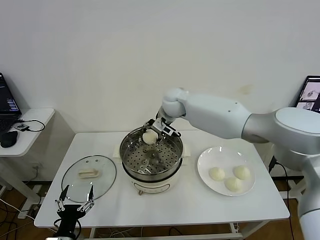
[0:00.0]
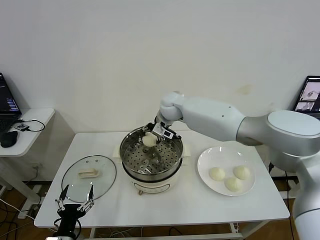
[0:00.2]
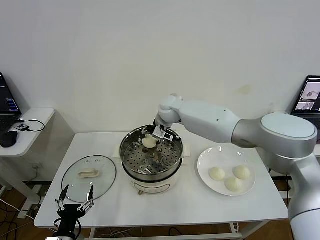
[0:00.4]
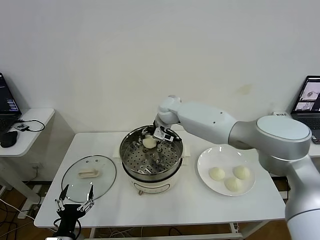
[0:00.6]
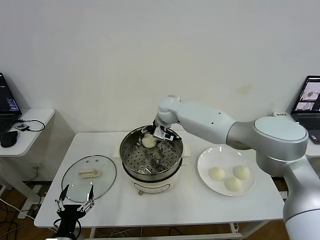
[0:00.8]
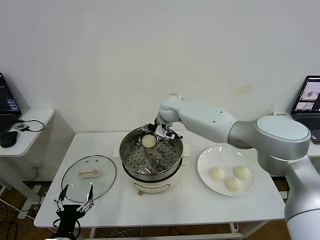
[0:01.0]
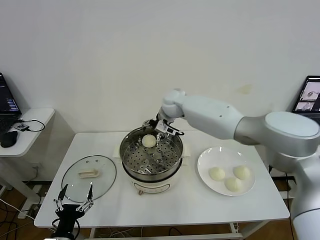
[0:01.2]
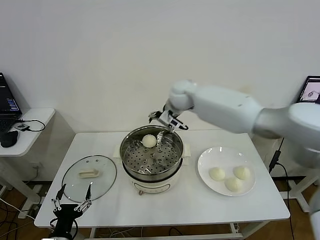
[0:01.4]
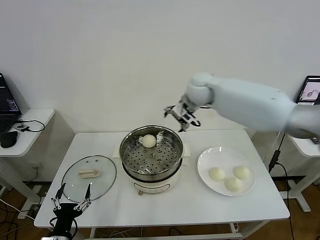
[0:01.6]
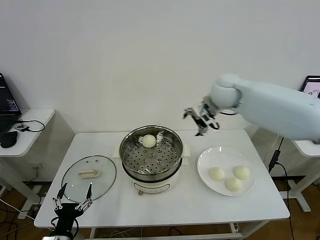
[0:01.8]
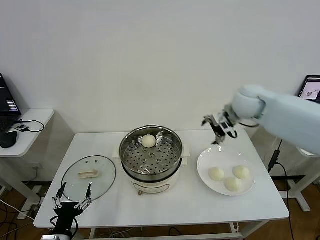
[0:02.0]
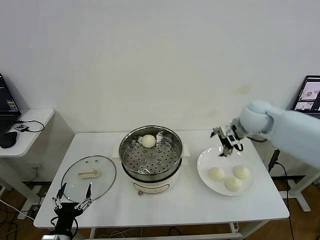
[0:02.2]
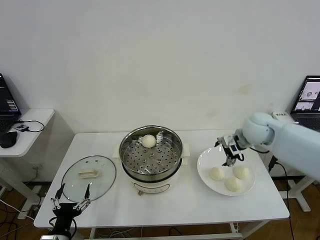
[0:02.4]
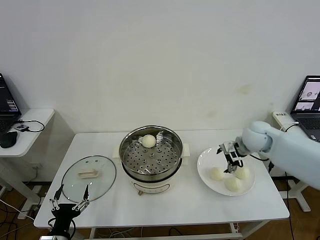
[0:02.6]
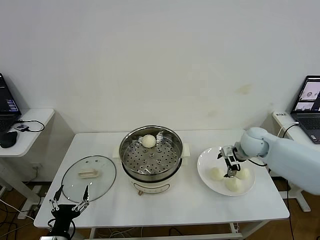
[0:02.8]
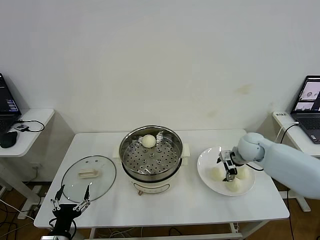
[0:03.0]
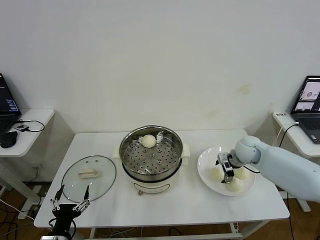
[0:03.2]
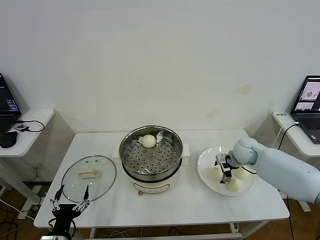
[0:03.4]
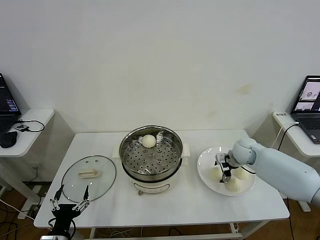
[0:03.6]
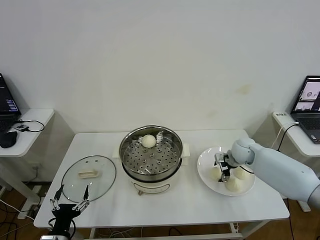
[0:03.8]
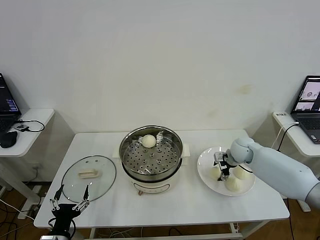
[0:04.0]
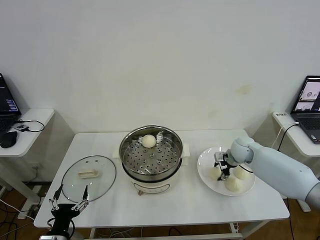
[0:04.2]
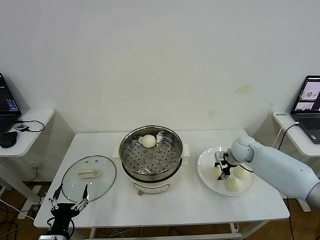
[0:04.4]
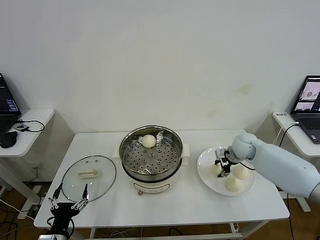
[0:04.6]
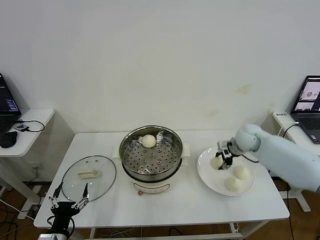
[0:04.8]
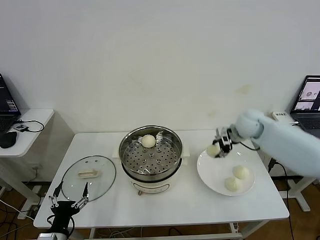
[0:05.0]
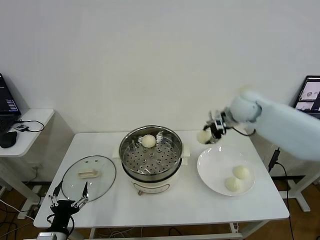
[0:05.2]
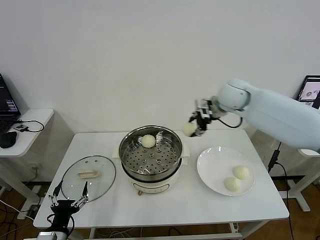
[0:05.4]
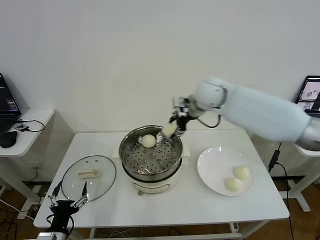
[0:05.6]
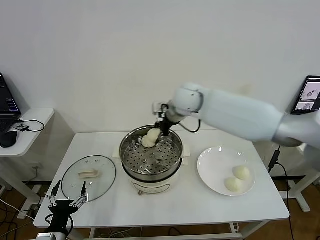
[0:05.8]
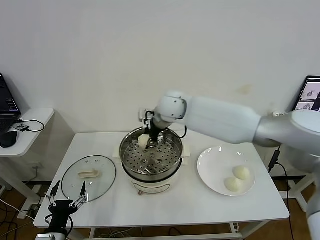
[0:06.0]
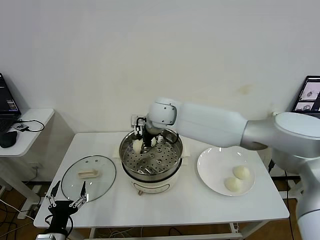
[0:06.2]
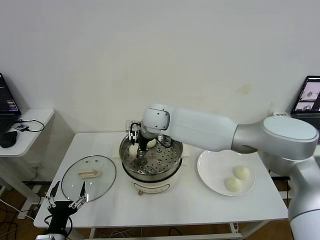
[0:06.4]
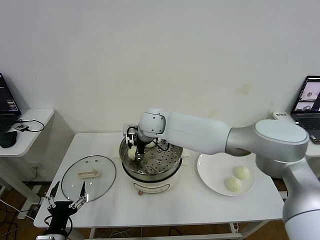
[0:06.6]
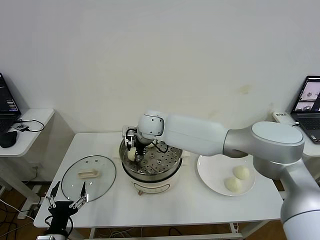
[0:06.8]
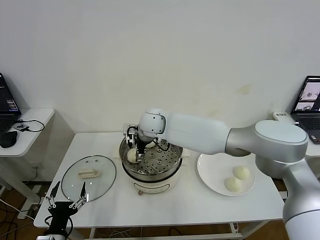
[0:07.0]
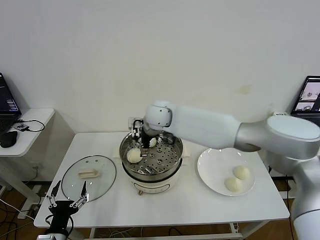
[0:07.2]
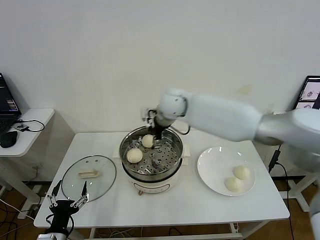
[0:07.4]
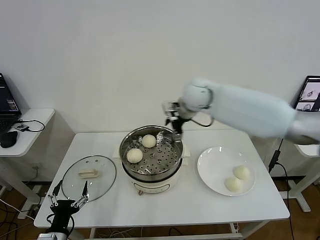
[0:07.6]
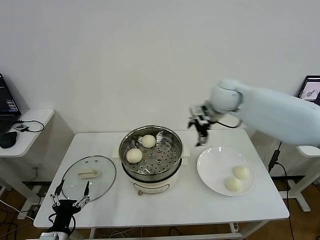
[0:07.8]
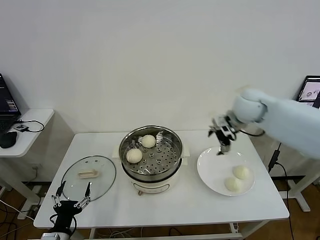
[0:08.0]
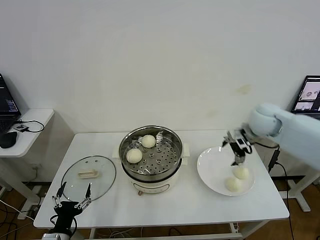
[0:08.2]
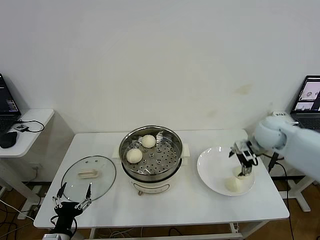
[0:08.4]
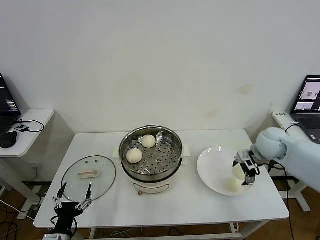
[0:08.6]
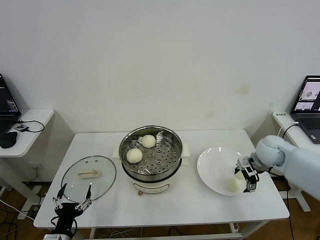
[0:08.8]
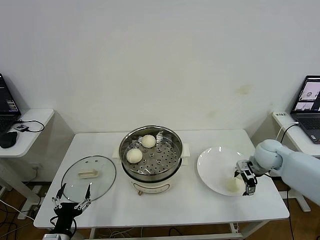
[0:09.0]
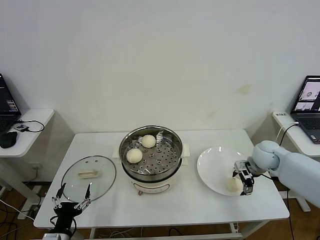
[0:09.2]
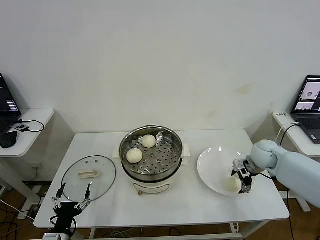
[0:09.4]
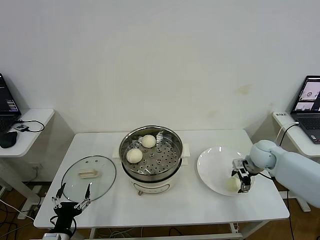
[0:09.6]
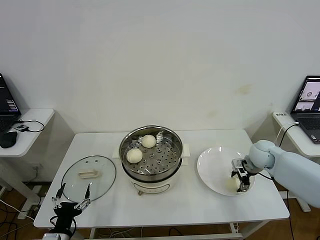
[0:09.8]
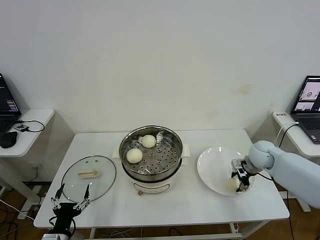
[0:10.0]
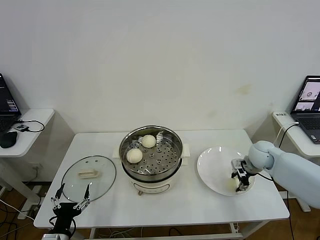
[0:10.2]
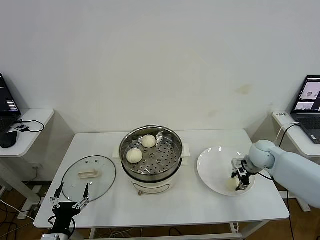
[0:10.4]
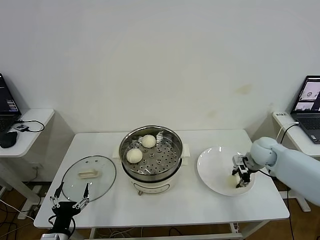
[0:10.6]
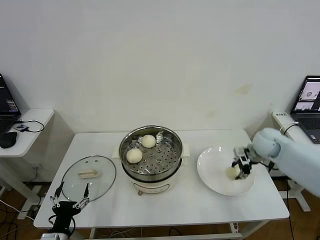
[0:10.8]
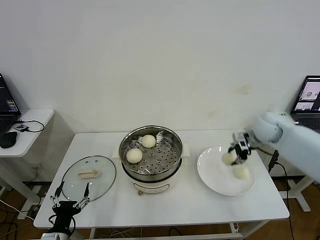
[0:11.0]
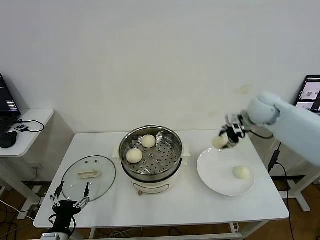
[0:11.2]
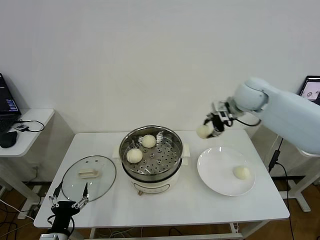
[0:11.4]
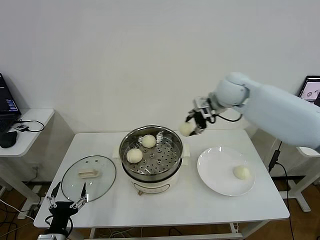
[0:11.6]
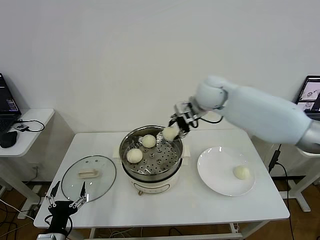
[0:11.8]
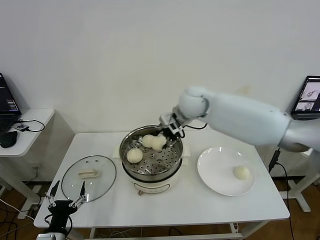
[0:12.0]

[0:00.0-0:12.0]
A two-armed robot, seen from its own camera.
Step, 1.0 to 4.2 s: Grasp the baozi in the plate with right gripper.
Step, 4.4 to 6.8 s: Place the baozi on the steamer with right gripper.
Step, 7.0 to 10.2 s: Grasp the baozi in the plate with right gripper.
0.0 to 1.6 s: The right gripper shifts some 15 cm to the right and upward, and opens up.
1.6 to 3.0 s: The right gripper moves downward and to the right, roughly 25 cm.
3.0 to 4.4 s: The right gripper closes its fingers.
4.4 to 6.0 s: The right gripper heads to the left and upward, covering approximately 35 cm.
6.0 to 7.6 s: The right gripper shifts about 15 cm to the right, and opens its fingers.
7.6 to 9.0 s: The right gripper shifts approximately 30 cm to the right and downward.
9.0 to 10.4 s: The right gripper closes.
10.4 to 12.0 s: The right gripper moves to the left and upward, approximately 35 cm.

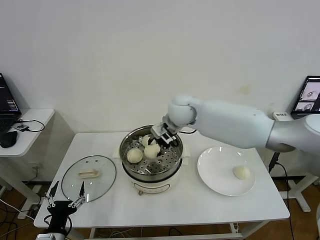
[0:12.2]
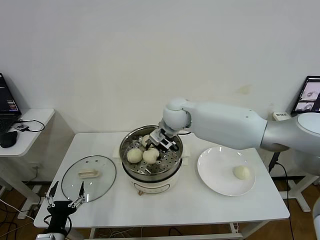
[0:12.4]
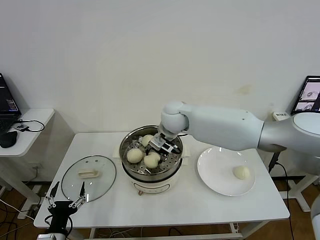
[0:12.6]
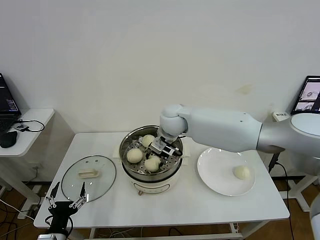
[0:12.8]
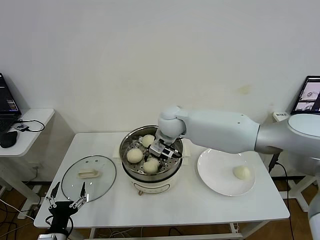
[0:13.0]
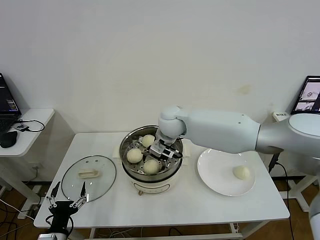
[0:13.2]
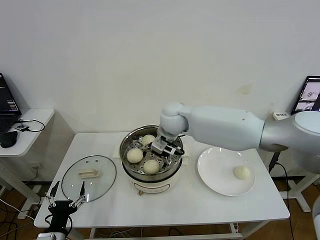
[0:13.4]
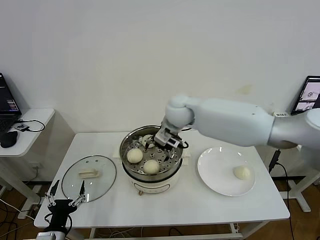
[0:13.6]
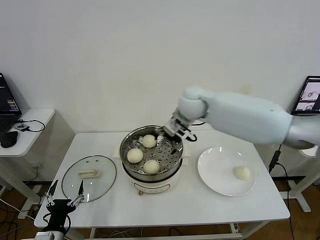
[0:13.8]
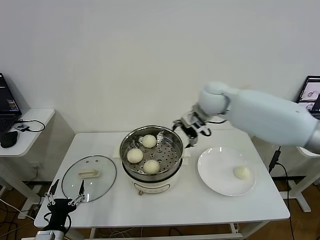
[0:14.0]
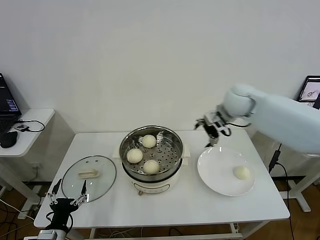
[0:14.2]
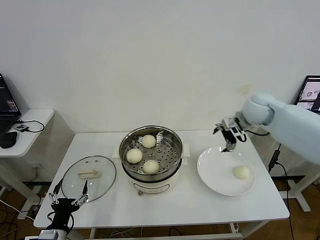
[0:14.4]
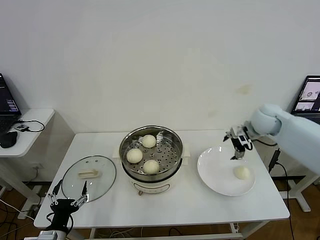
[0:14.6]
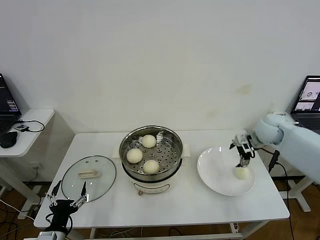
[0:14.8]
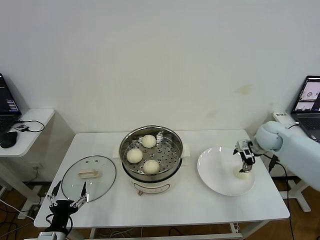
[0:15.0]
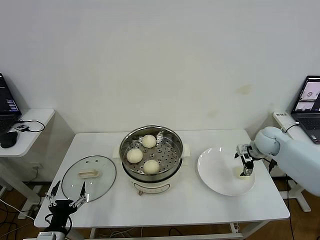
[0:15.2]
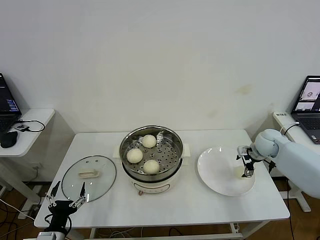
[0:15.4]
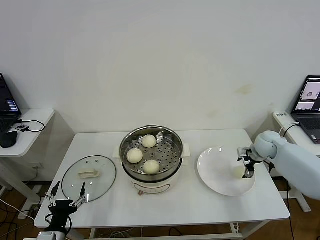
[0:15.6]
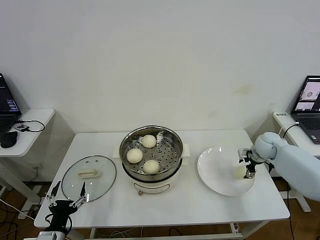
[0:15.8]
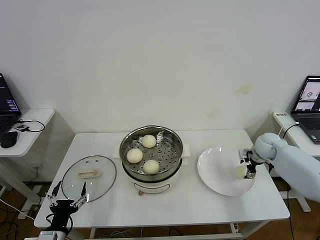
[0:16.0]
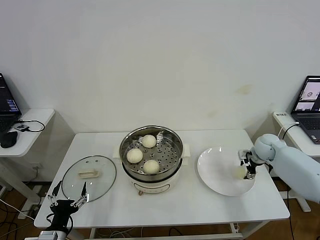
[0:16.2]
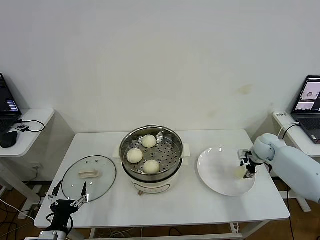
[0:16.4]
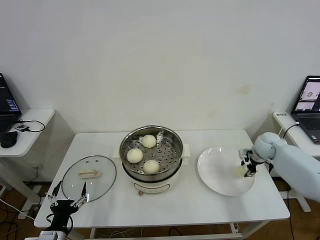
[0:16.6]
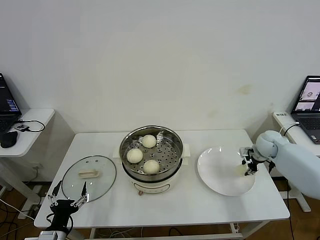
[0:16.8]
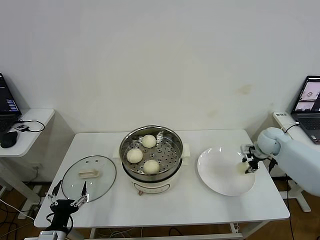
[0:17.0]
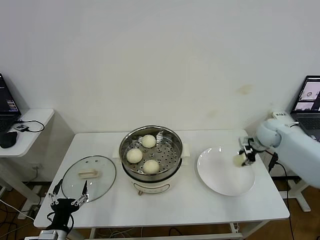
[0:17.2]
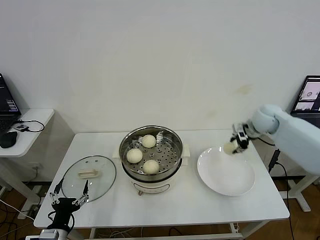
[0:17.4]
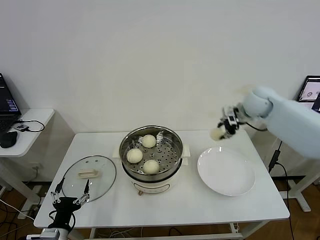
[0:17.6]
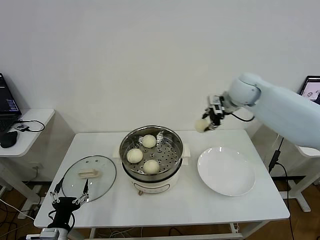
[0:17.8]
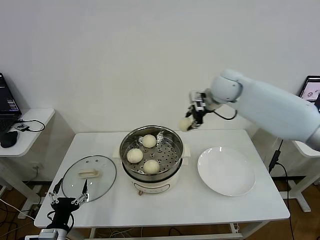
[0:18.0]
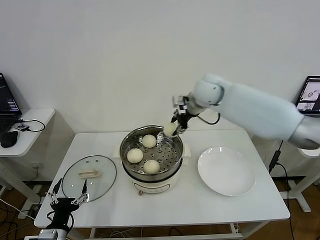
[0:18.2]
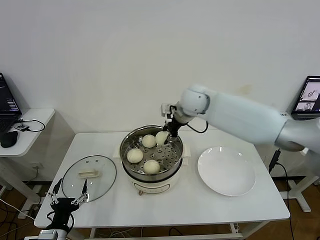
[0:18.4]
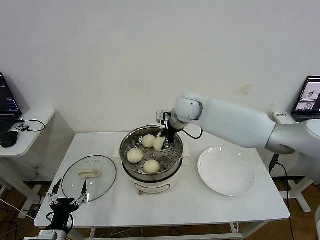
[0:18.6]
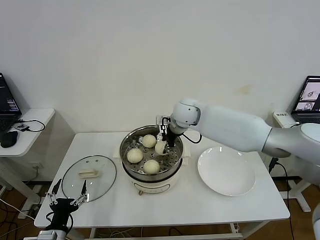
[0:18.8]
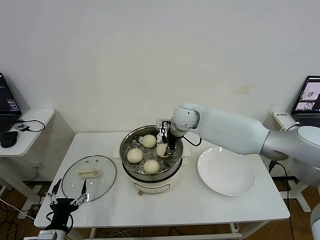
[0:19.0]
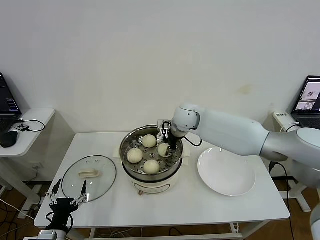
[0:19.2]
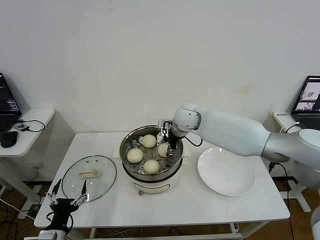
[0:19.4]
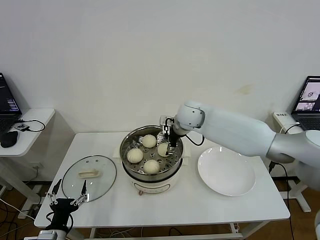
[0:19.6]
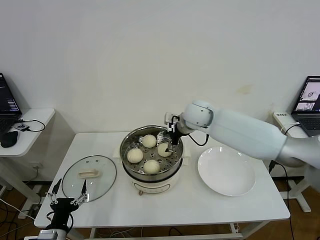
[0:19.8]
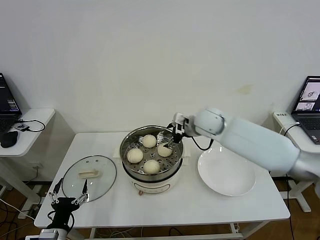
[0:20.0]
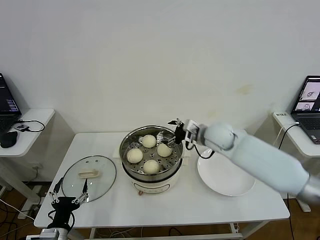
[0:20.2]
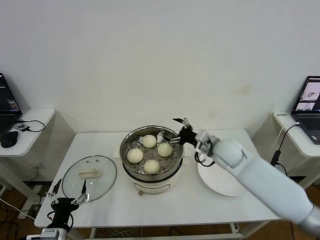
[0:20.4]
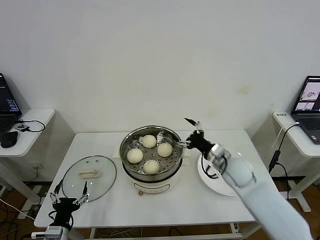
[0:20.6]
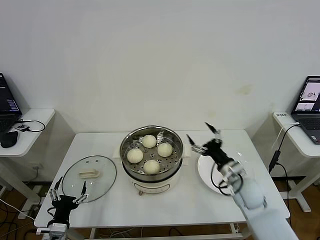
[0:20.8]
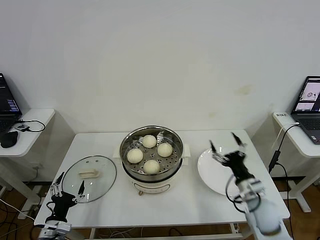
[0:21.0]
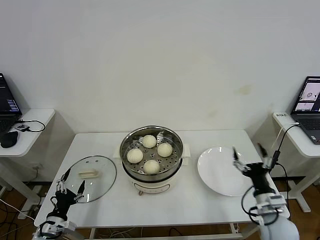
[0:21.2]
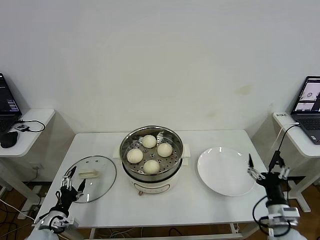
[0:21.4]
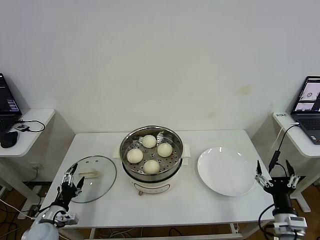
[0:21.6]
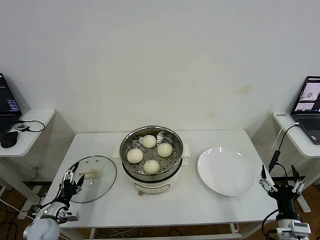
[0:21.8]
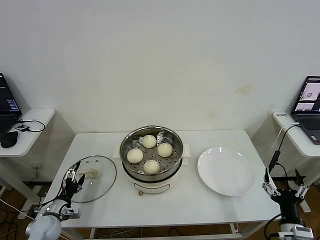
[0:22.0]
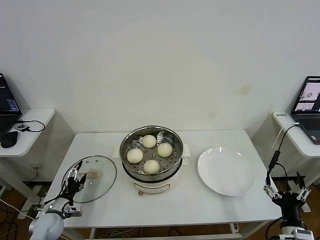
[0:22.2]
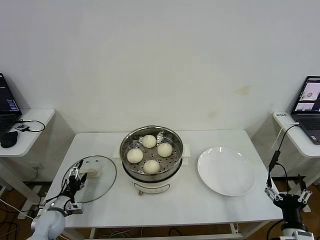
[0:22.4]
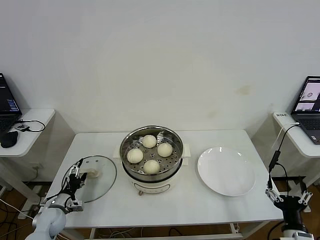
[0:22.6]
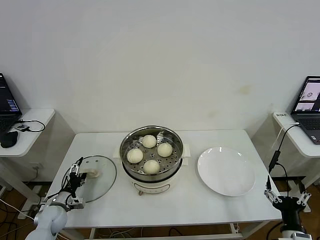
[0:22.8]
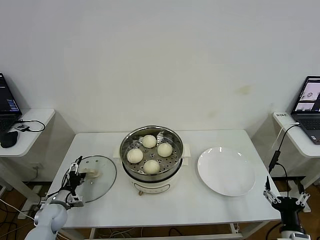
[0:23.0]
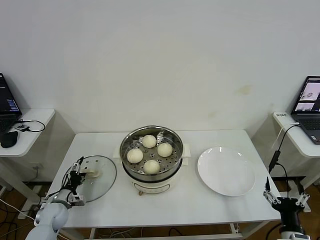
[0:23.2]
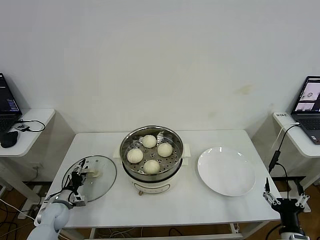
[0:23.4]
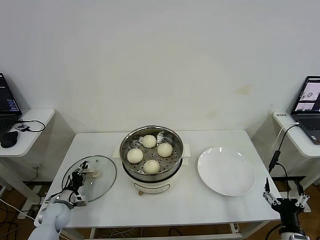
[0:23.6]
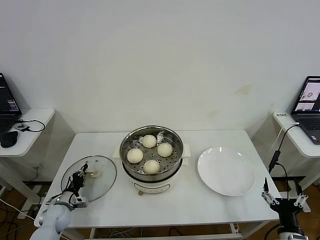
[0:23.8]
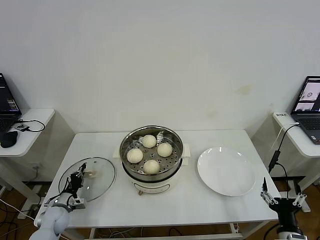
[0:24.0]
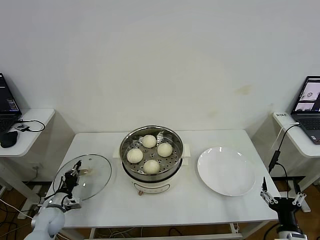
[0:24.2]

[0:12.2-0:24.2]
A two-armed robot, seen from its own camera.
Step, 13.2 to 16.4 s: Grasp the baozi in the plate with right gripper.
Step, 16.6 to 19.4 s: Place the baozi on the steamer with right gripper.
12.2 to 13.8 s: The right gripper heads to the right, covering some 5 cm, and opens.
13.8 to 15.2 s: The right gripper is displaced to the right and downward by approximately 30 cm.
15.2 to 16.6 s: The right gripper closes.
16.6 to 18.2 s: The right gripper shifts approximately 35 cm to the left and upward.
18.2 to 19.8 s: The right gripper travels downward by some 5 cm, and opens.
19.8 to 21.2 s: The right gripper shifts approximately 40 cm backward, to the right and downward. The left gripper ends up about 5 cm from where it was.
21.2 to 22.6 s: The left gripper moves forward, approximately 10 cm, while the right gripper travels backward by some 10 cm.
22.6 to 24.2 s: The left gripper closes its fingers.
